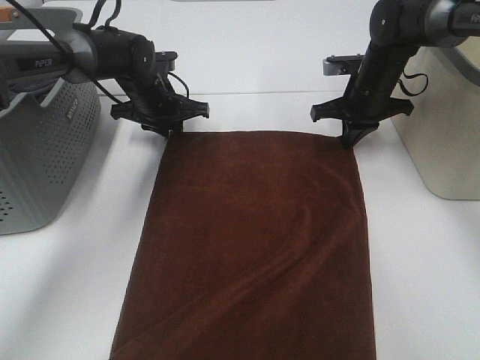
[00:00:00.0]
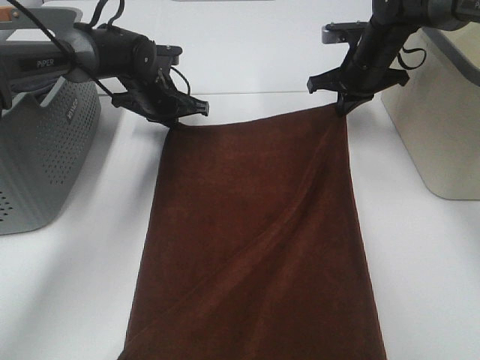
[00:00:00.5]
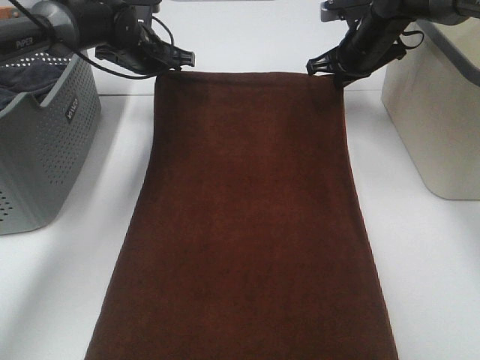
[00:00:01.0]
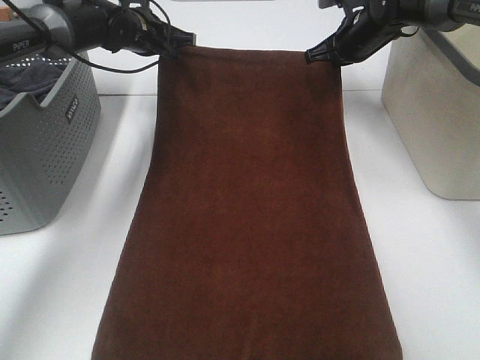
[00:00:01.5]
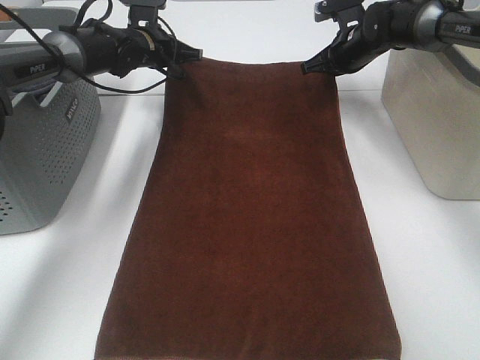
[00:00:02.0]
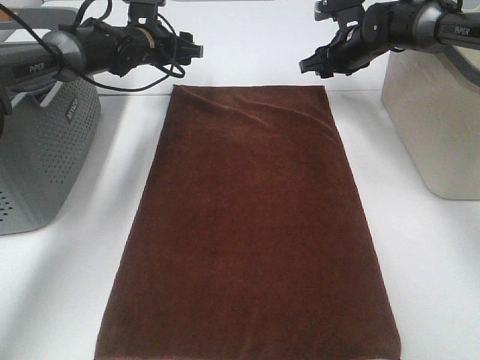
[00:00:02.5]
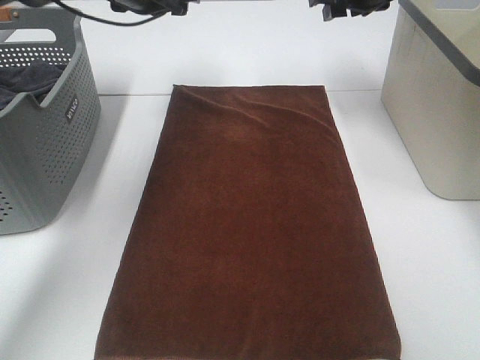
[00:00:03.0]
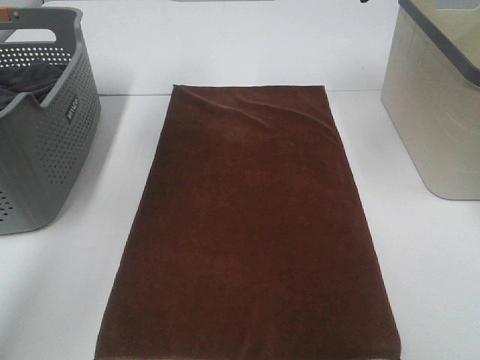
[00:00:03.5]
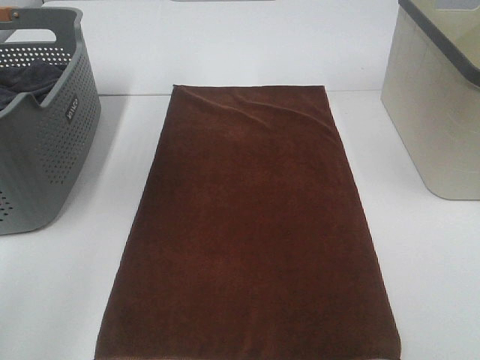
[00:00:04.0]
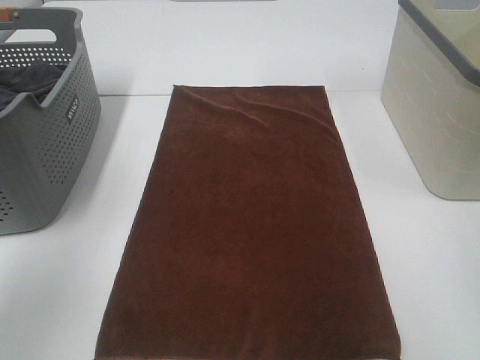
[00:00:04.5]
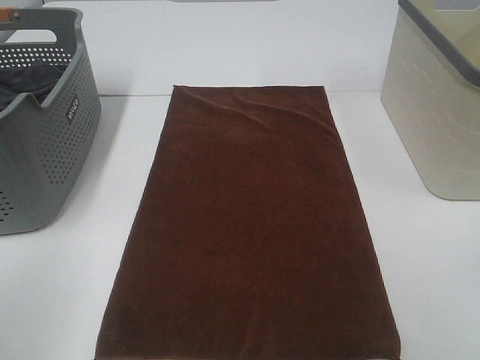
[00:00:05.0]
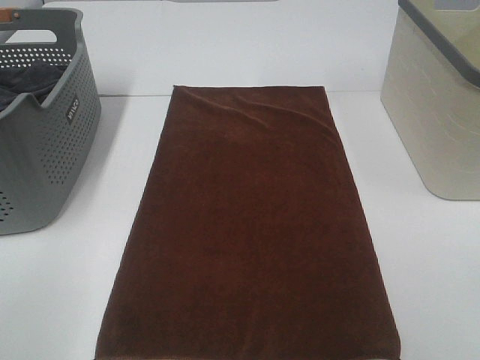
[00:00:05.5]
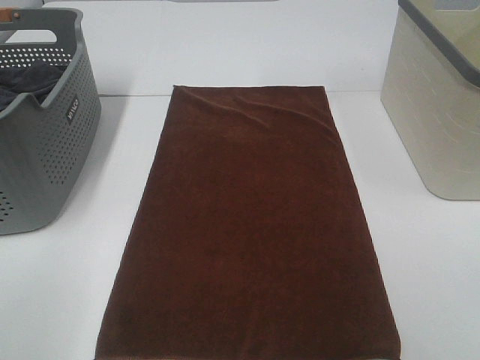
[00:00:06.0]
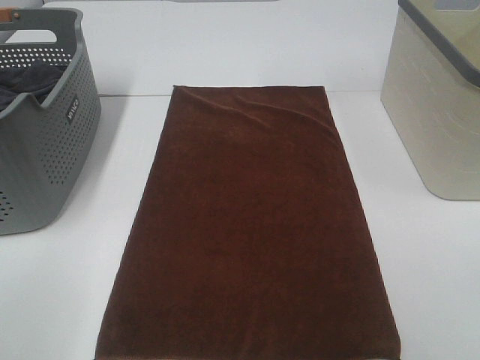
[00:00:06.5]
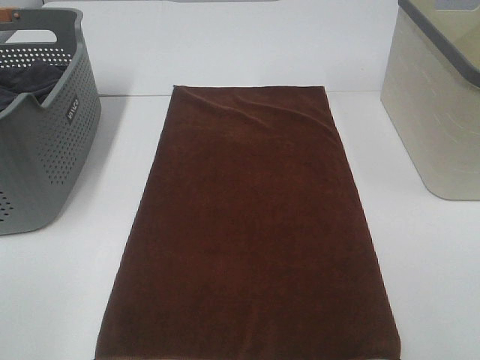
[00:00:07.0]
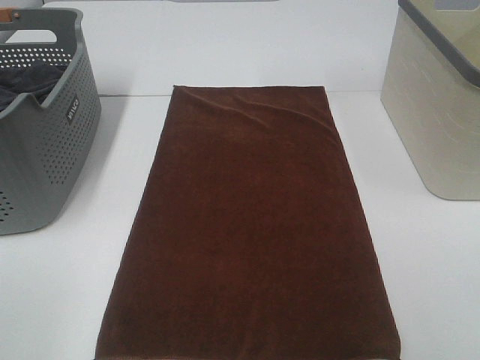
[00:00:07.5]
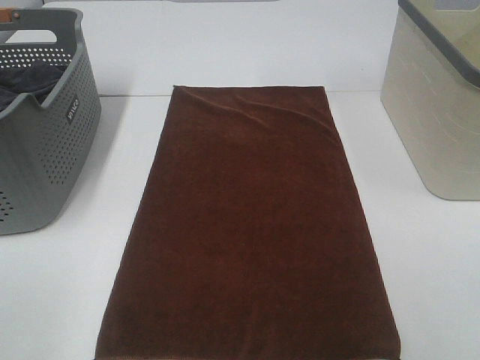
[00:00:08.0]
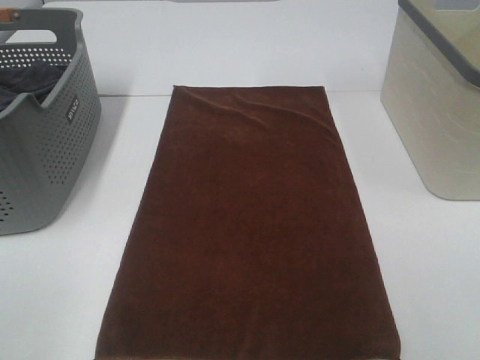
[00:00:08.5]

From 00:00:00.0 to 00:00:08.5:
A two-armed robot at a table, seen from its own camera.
Task of the whole recording: Remove the towel and place it.
From 00:00:00.0 to 00:00:02.0: The grippers both shift forward by roughly 5 cm.
From 00:00:02.0 to 00:00:04.0: Both grippers travel together upward and backward, roughly 35 cm. The right gripper opens. The left gripper opens.
From 00:00:04.0 to 00:00:06.5: The left gripper moves backward and downward, about 35 cm.
